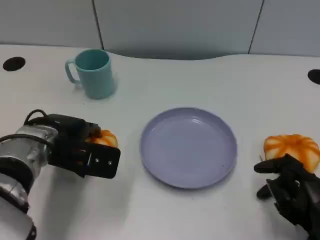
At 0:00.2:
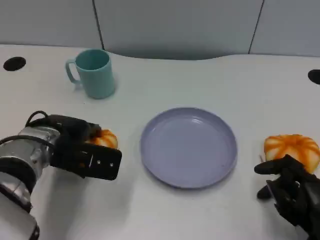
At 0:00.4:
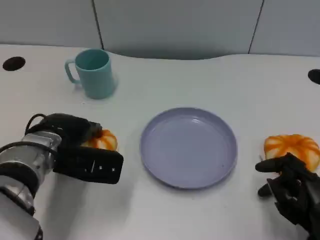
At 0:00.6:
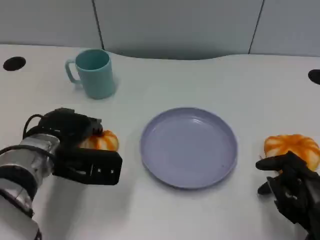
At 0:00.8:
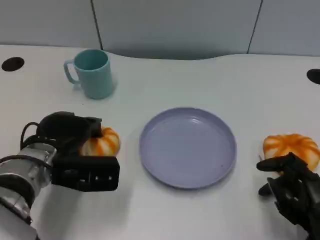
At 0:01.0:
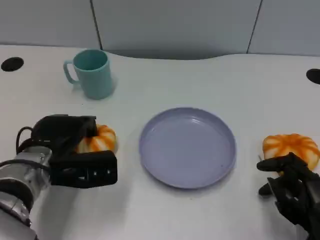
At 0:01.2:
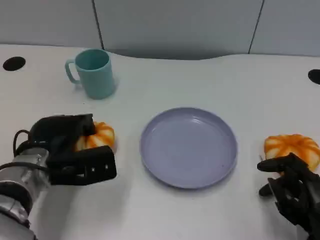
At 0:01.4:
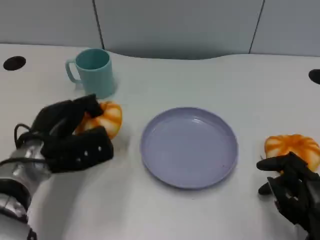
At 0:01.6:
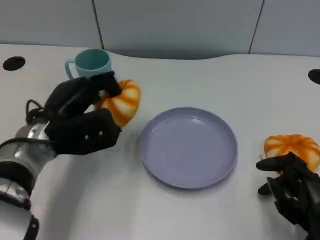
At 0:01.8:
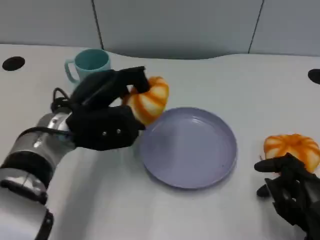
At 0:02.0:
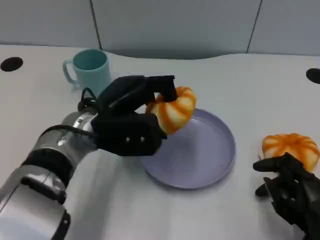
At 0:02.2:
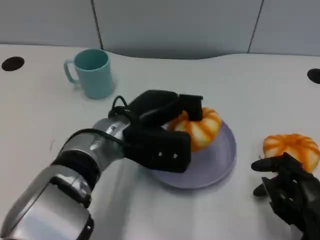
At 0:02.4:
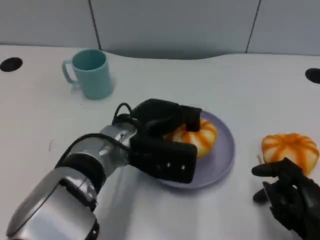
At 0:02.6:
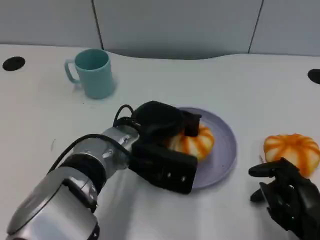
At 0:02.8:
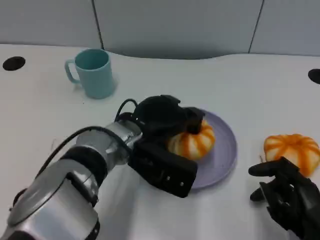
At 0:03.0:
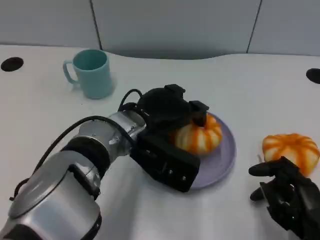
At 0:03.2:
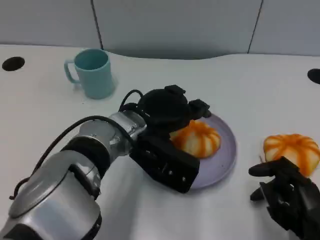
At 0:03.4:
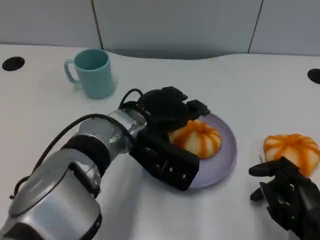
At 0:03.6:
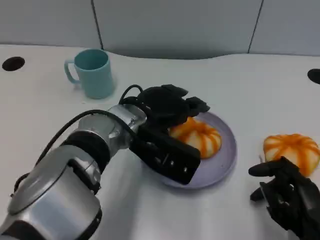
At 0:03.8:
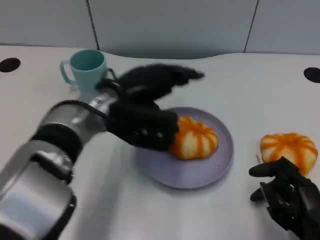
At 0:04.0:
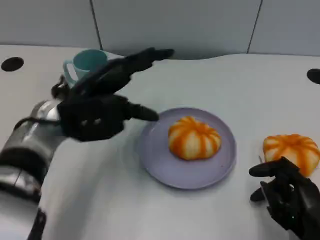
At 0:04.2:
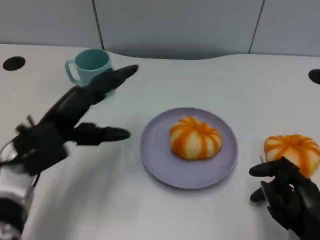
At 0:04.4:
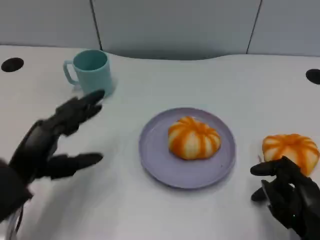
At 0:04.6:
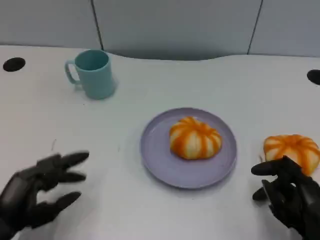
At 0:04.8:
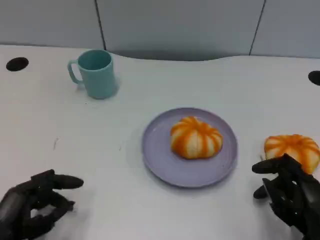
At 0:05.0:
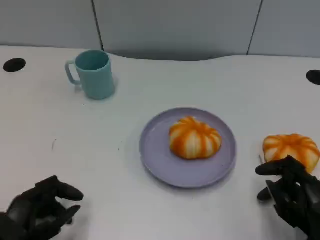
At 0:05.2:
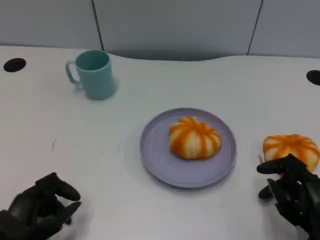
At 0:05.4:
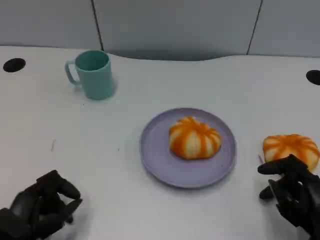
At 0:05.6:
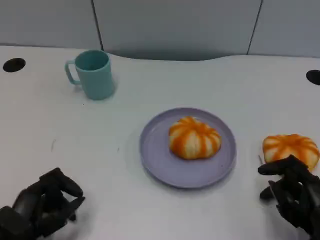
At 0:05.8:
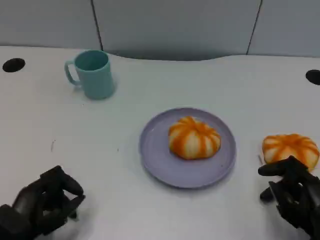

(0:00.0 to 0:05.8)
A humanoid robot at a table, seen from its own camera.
Task of the whole recording: Grasp the bread from the table and place it into the plate.
0:01.4 - 0:02.8: The left hand moves to the right, about 15 cm.
0:02.8 - 0:04.4: The left hand is displaced to the left and backward by roughly 20 cm.
0:04.4 - 0:05.8: The left hand shifts approximately 10 cm backward and downward.

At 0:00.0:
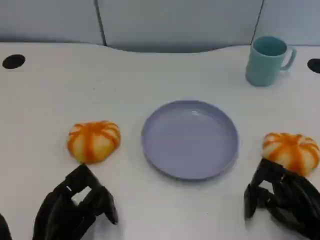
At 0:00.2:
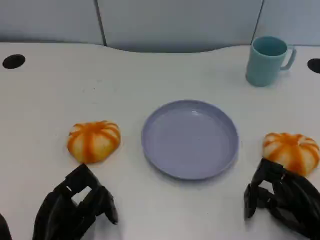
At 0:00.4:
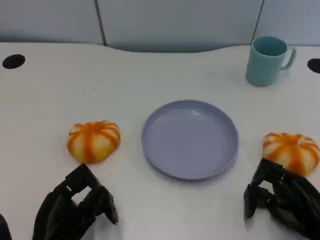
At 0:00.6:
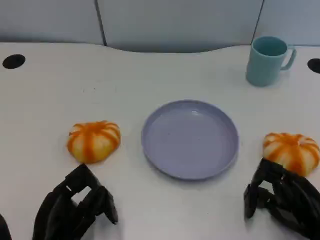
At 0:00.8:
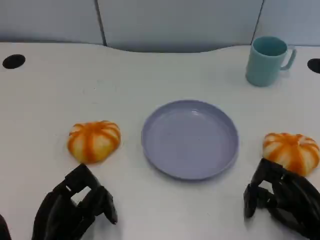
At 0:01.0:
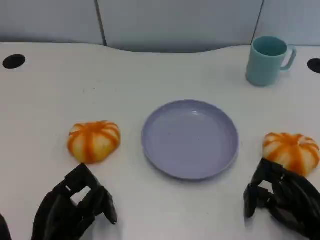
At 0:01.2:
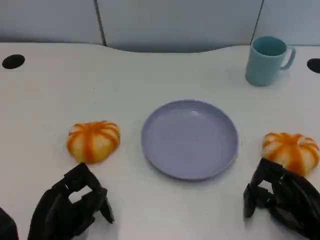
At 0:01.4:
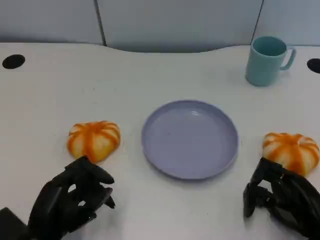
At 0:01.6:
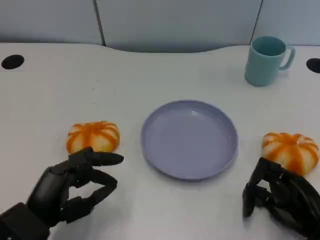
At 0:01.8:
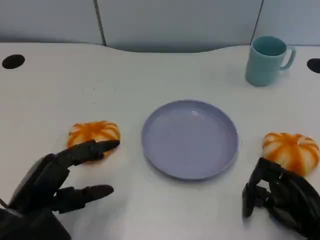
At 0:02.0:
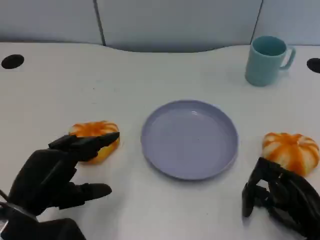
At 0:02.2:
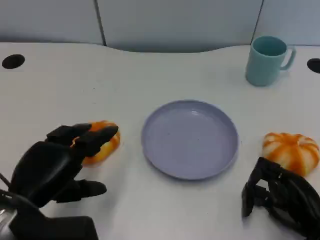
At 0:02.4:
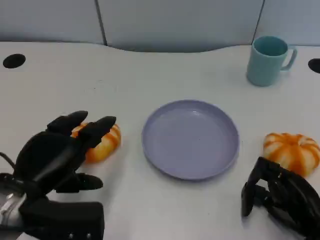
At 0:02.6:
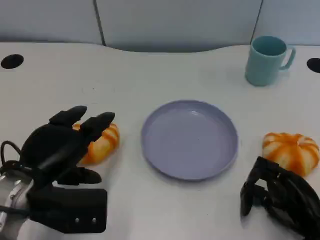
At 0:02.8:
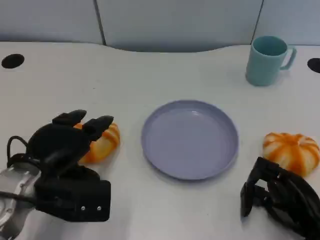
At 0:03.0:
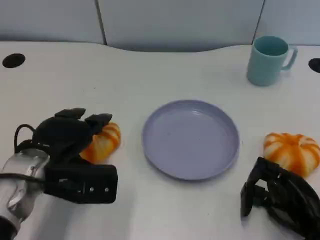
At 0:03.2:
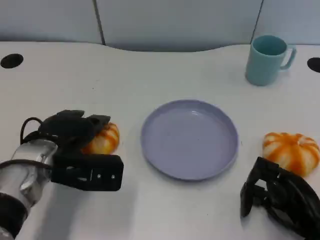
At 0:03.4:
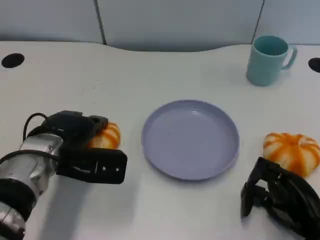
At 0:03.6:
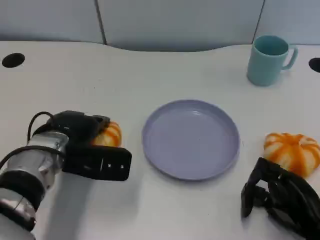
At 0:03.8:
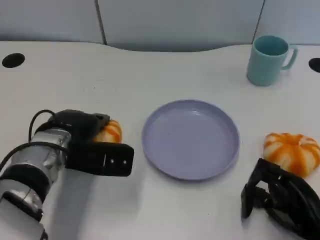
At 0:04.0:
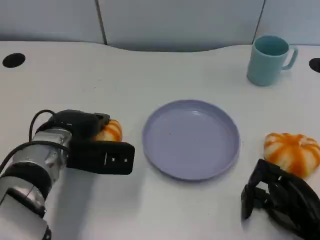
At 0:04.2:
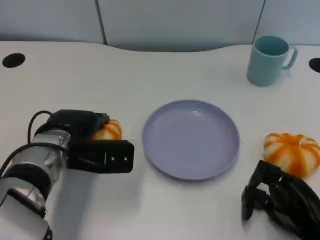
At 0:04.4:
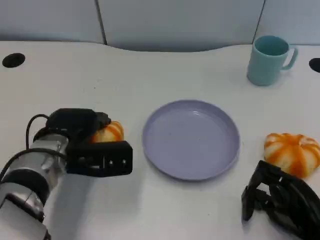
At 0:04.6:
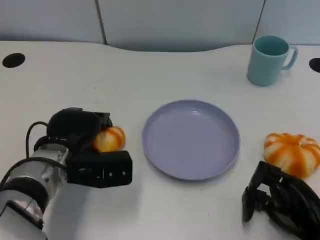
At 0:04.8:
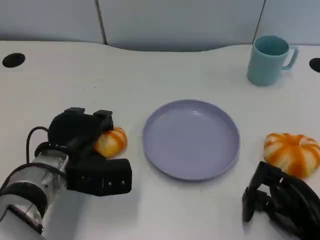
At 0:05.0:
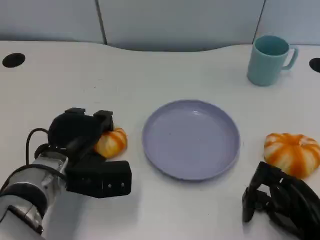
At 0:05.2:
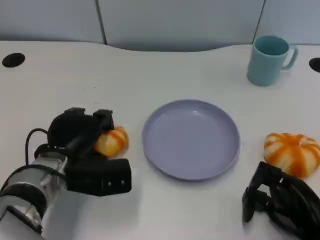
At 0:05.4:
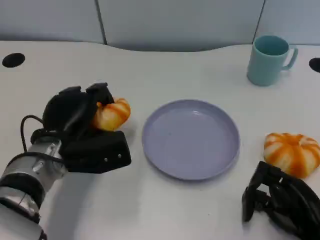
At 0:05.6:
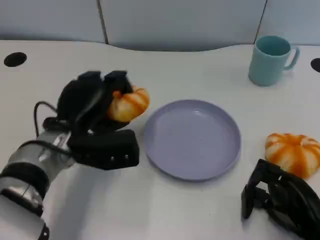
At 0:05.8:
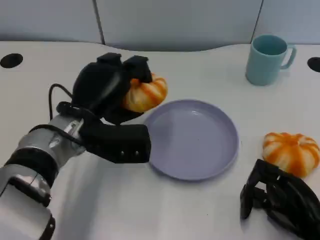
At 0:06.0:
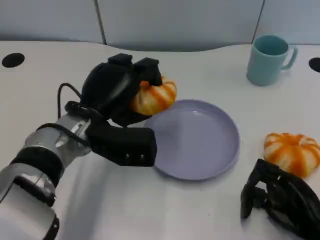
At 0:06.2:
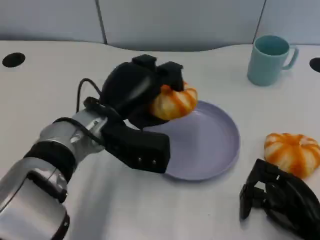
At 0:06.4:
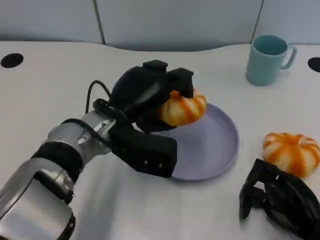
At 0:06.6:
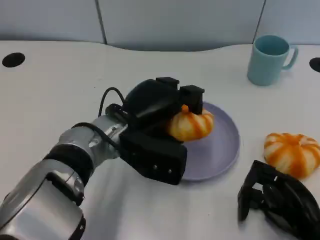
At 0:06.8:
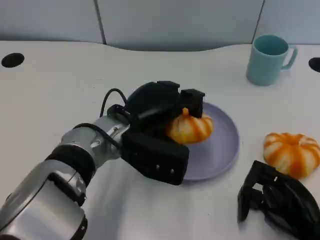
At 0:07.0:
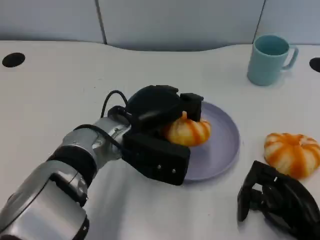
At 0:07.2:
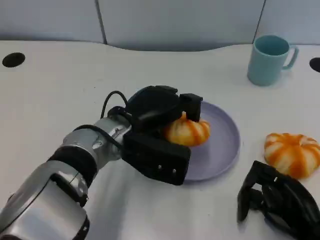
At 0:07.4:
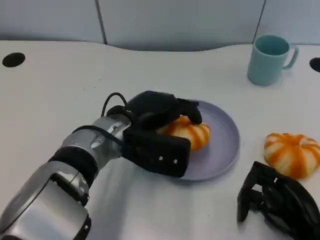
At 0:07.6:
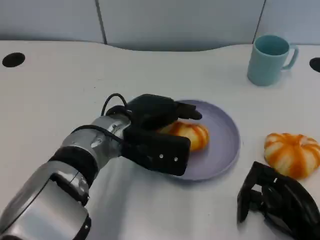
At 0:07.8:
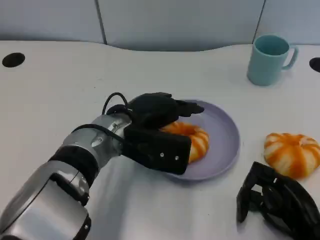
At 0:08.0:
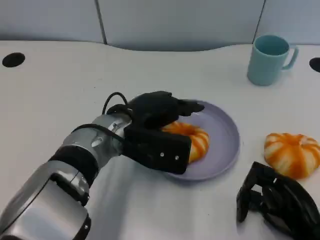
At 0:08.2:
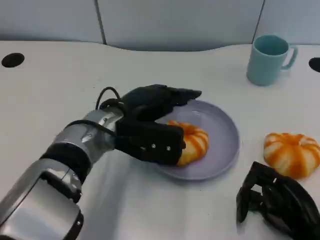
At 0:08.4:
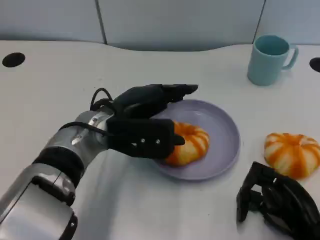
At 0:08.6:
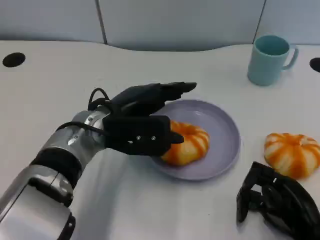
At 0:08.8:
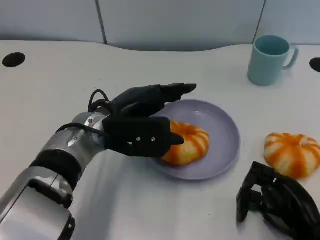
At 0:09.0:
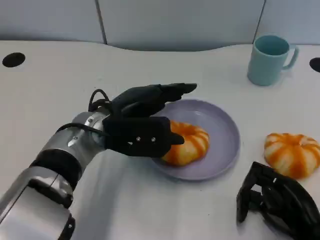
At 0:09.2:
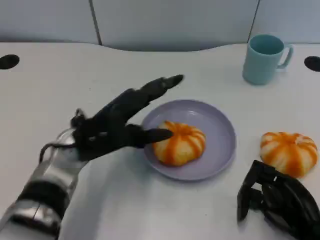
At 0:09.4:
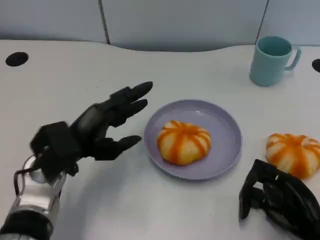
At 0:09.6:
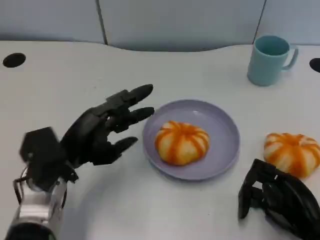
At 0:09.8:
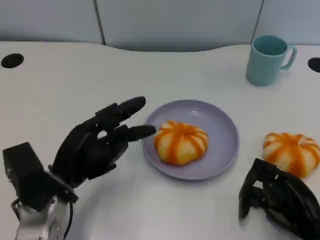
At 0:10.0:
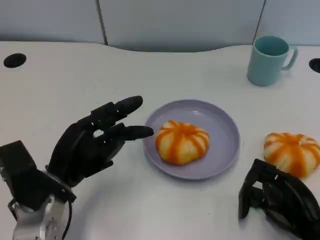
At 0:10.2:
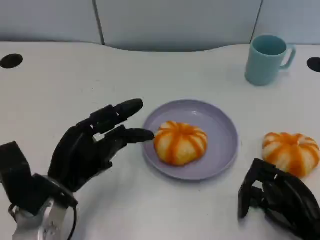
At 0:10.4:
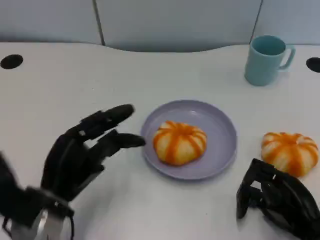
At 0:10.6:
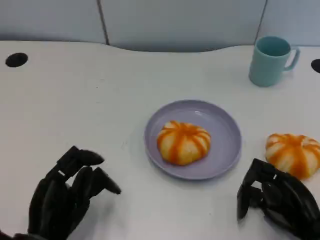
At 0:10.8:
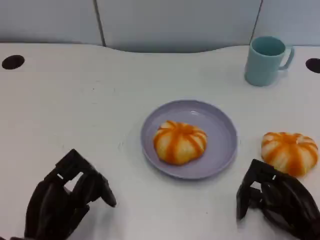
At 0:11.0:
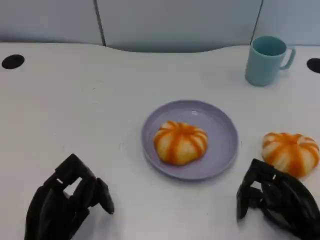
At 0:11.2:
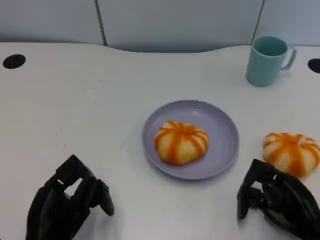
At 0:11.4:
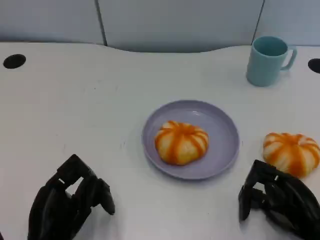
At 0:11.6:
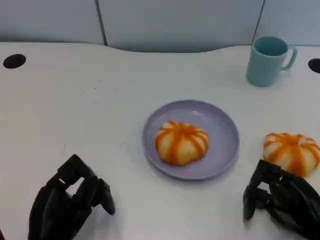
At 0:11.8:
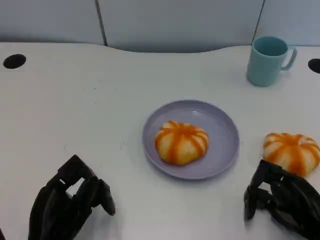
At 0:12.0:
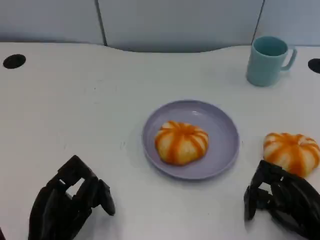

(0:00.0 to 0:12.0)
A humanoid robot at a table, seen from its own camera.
Task of the whole recording: Grasp the bread from the table and place it into the plate.
0:00.0 - 0:01.6: The left hand changes place by about 5 cm.
0:01.6 - 0:03.0: The left hand goes about 10 cm forward.
0:03.0 - 0:04.4: There are only small adjustments of the hands.
0:04.4 - 0:06.0: The left hand shifts roughly 5 cm to the right.
0:07.6 - 0:09.0: There are only small adjustments of the hands.
0:09.0 - 0:10.4: The left hand shifts about 15 cm backward, to the left and downward.
0:10.4 - 0:12.0: The left hand ends up roughly 5 cm from where it was.
